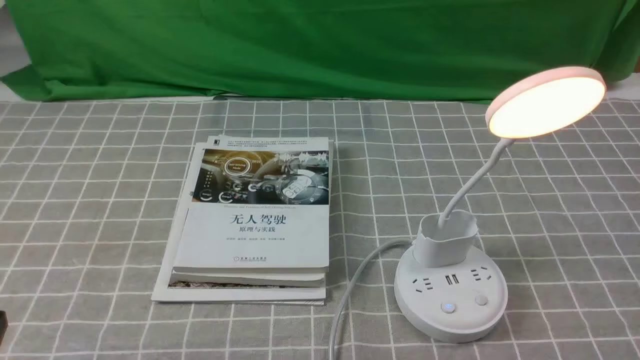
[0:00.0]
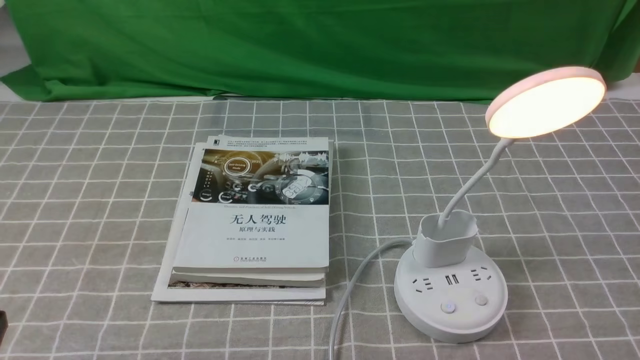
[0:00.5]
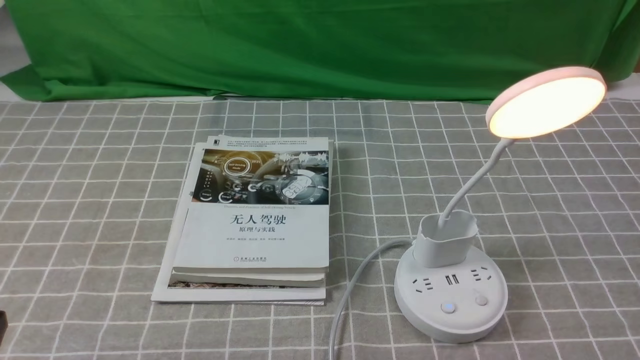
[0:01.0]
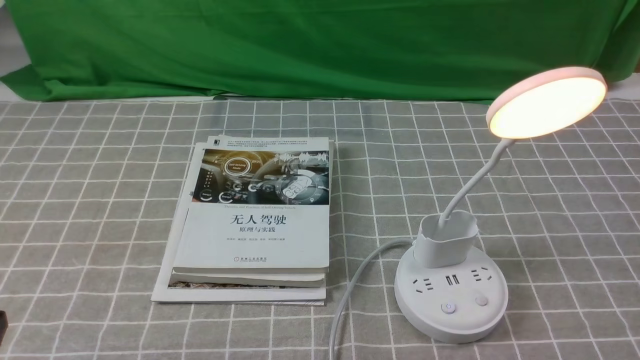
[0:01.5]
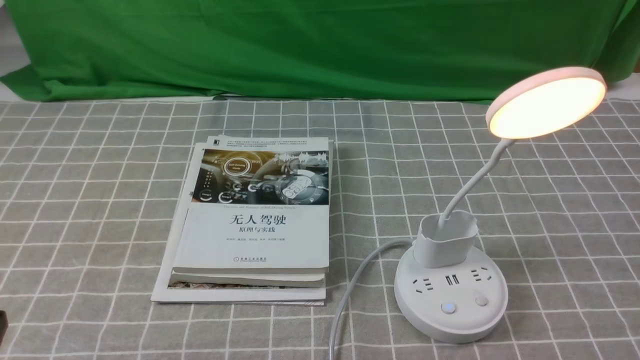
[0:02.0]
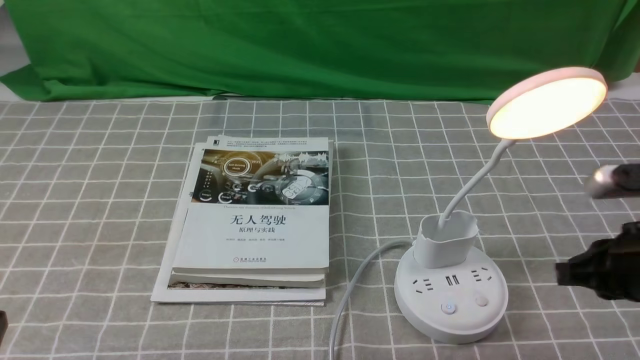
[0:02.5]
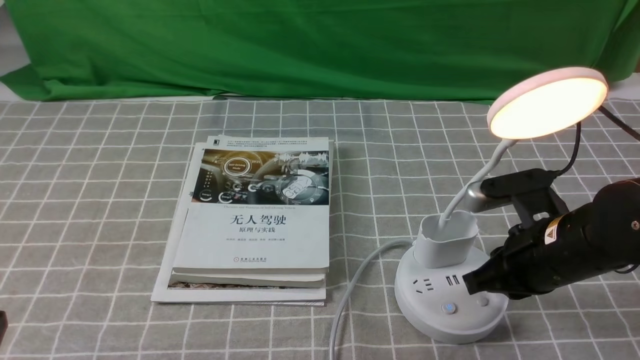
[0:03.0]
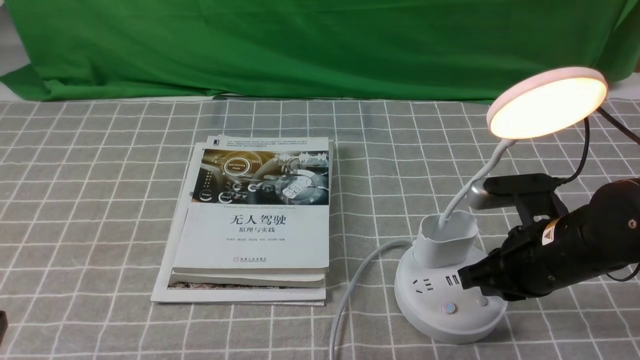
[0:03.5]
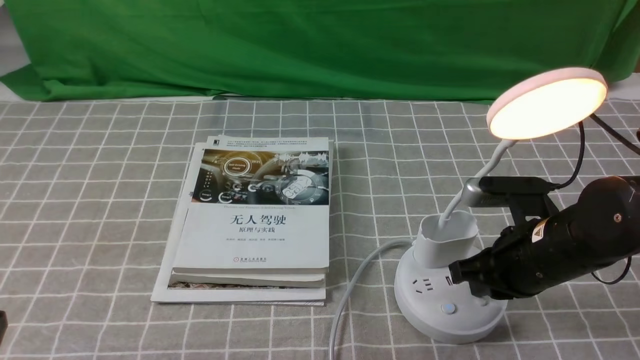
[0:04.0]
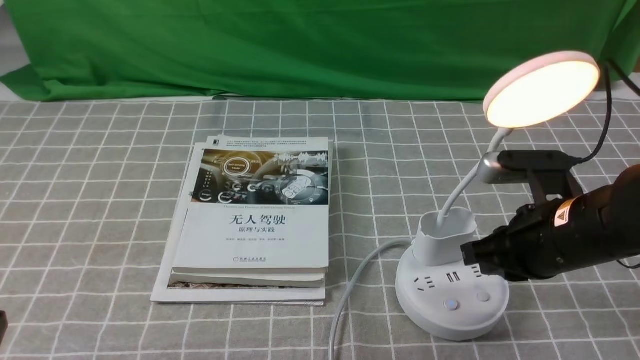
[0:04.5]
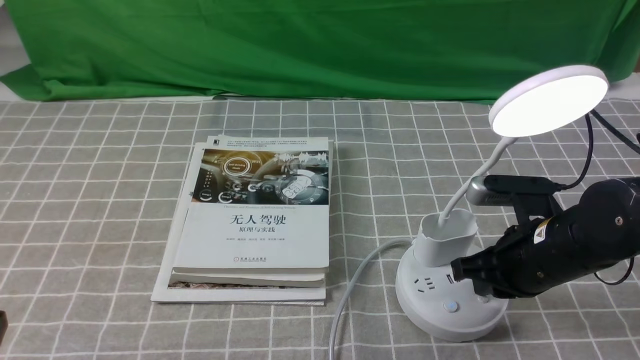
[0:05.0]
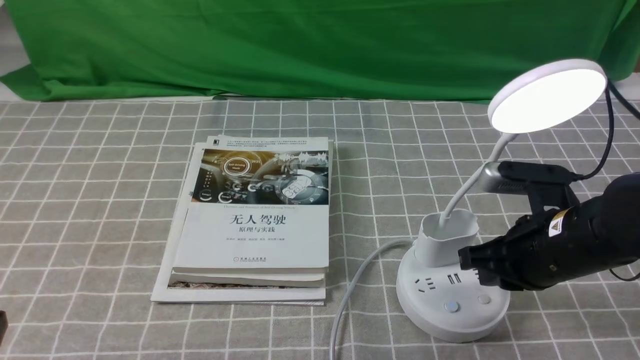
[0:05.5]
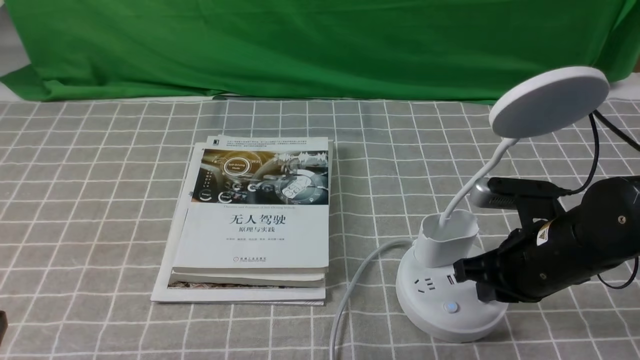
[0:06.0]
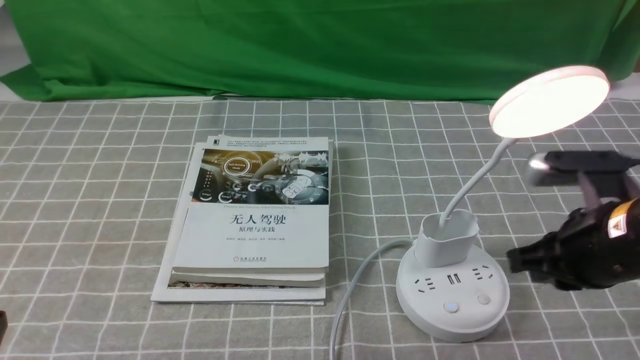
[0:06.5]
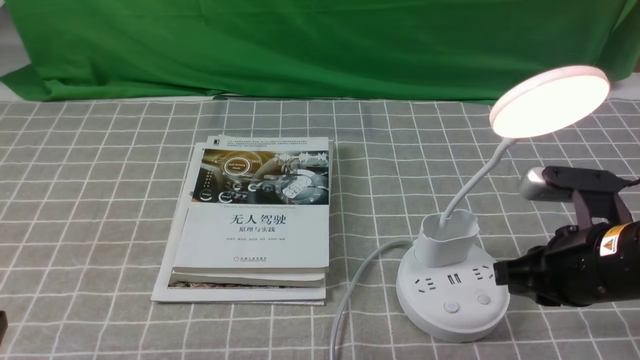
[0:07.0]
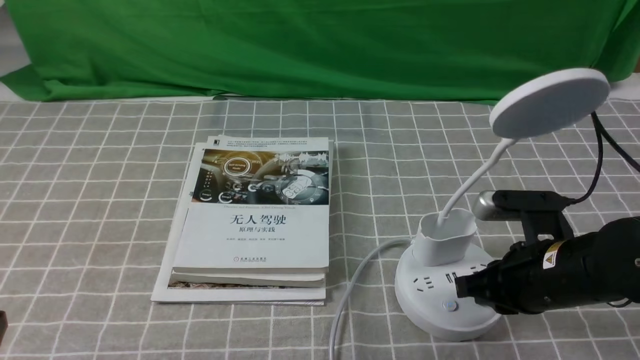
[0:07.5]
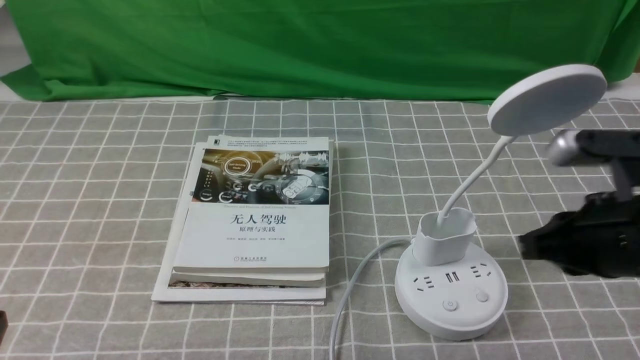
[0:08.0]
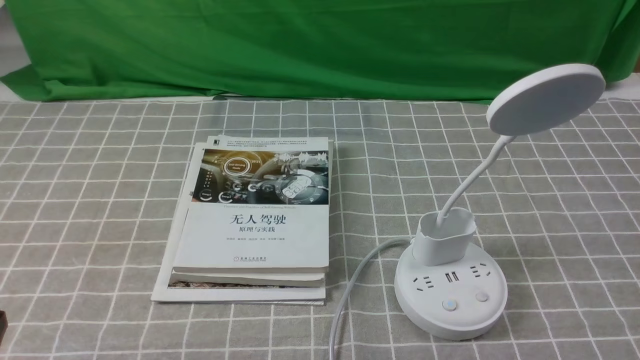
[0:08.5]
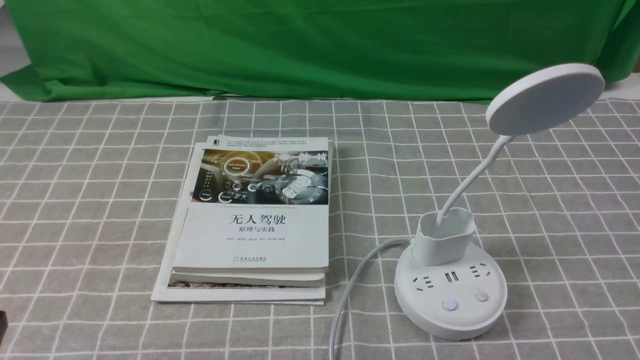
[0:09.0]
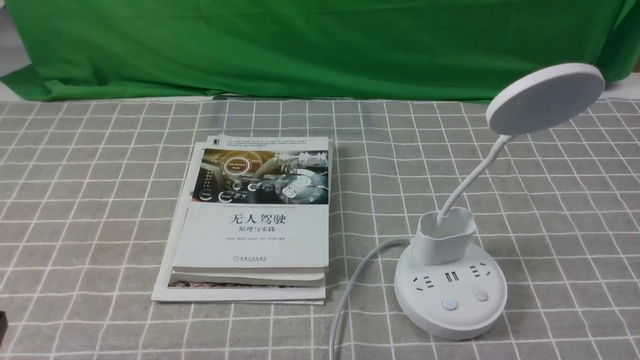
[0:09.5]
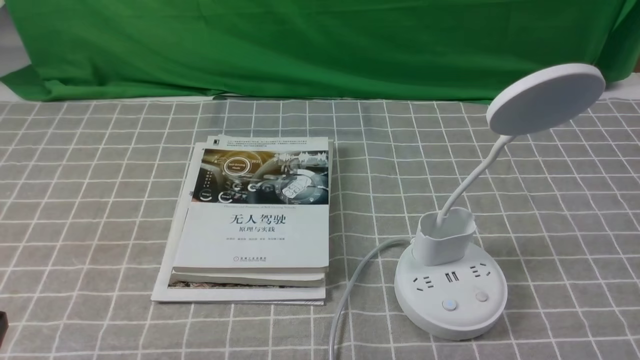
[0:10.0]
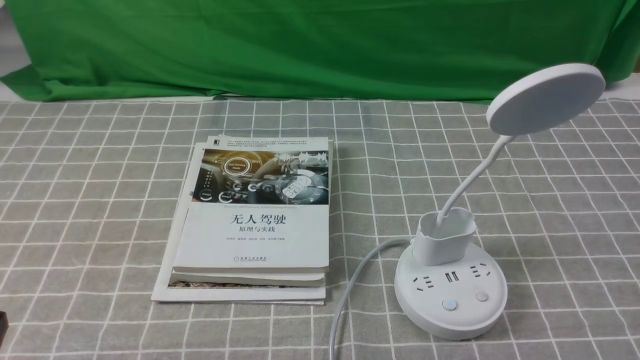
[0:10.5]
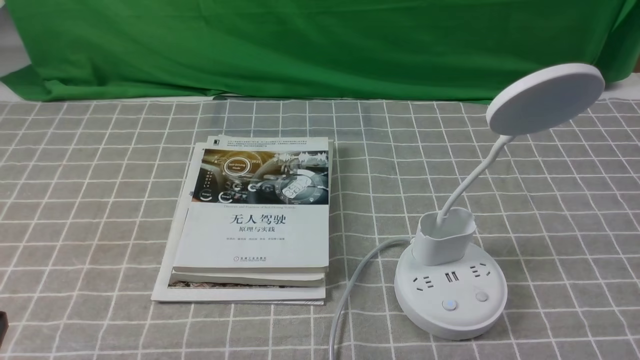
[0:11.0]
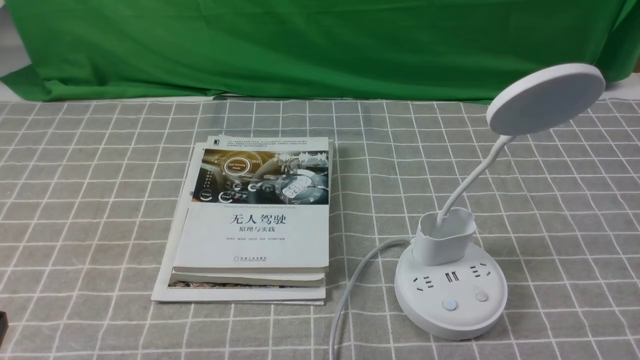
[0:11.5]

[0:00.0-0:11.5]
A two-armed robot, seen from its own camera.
Task of the whole recording: turn off the desk lamp on the grey coffee tablecloth by hand.
Step, 0:00.0 to 0:07.5: use the right arm to press the button switch on the lamp holder.
0:02.0 to 0:04.0: The right gripper travels forward, to the left and downward by some 20 cm.
0:04.0 to 0:06.0: The right gripper opens up.
0:06.0 to 0:07.5: The right gripper closes its fingers.
0:07.5 to 0:09.5: The right gripper goes about 20 cm backward and to the right.

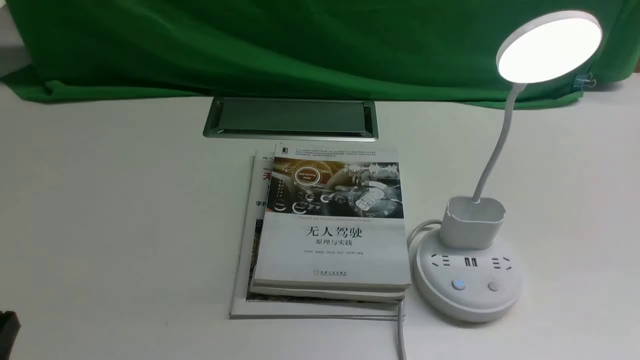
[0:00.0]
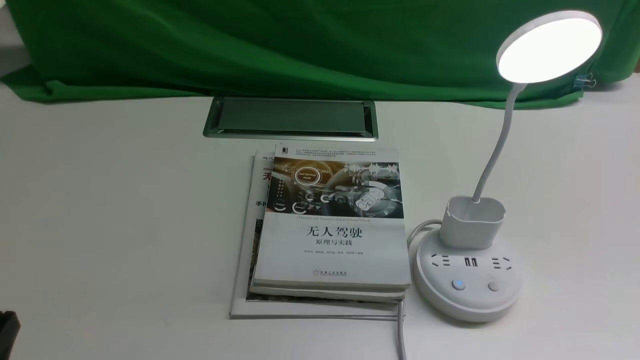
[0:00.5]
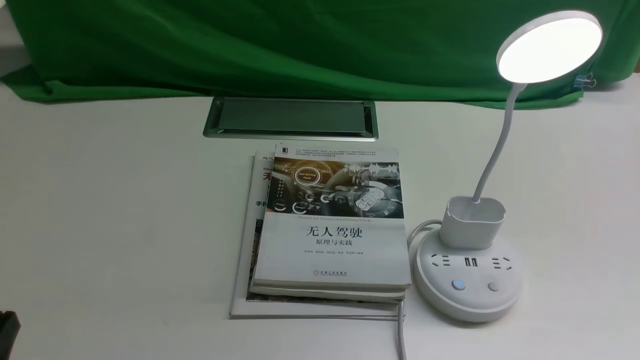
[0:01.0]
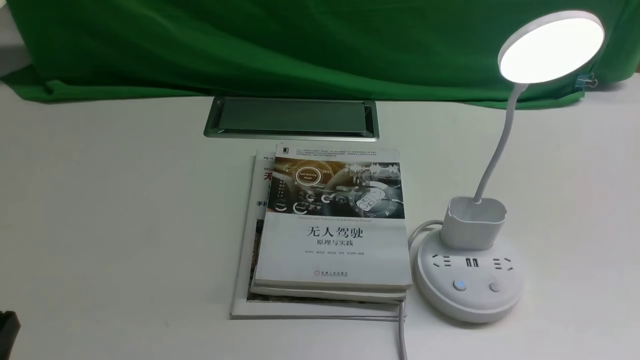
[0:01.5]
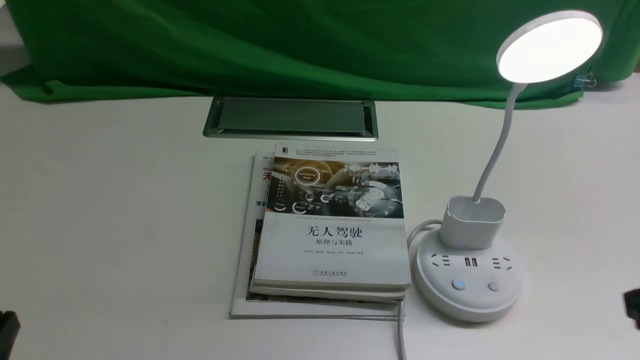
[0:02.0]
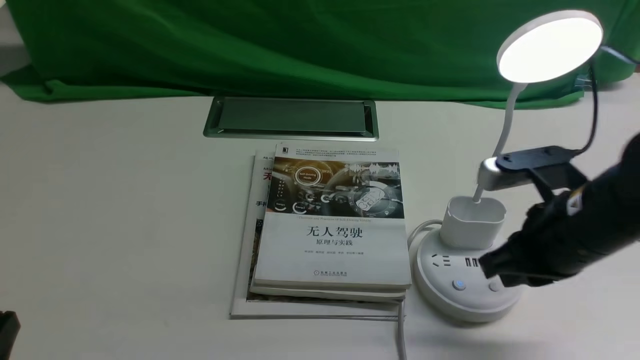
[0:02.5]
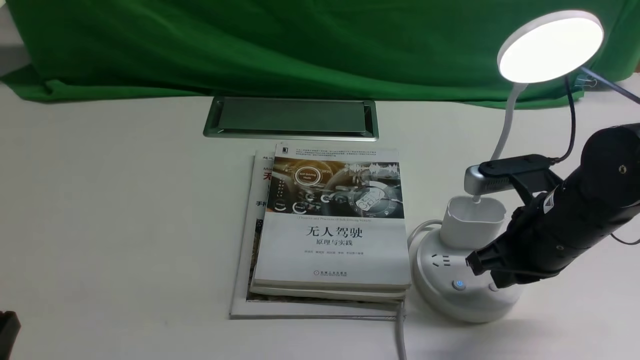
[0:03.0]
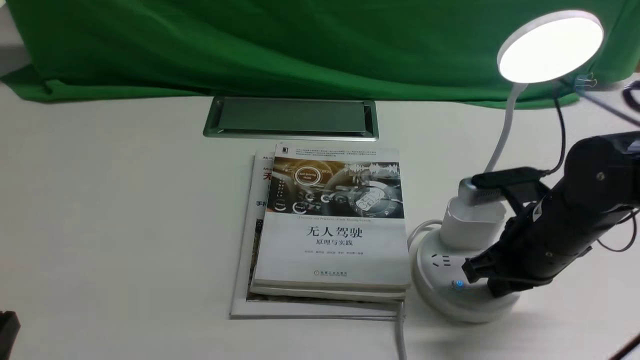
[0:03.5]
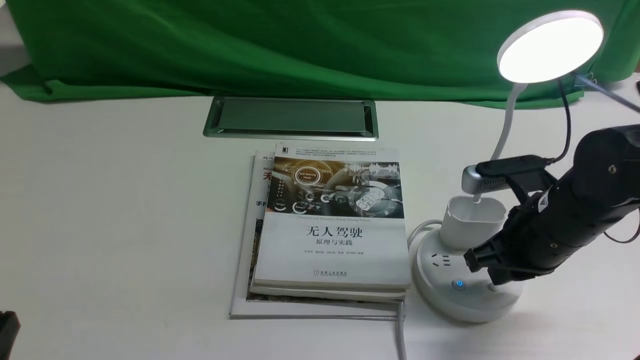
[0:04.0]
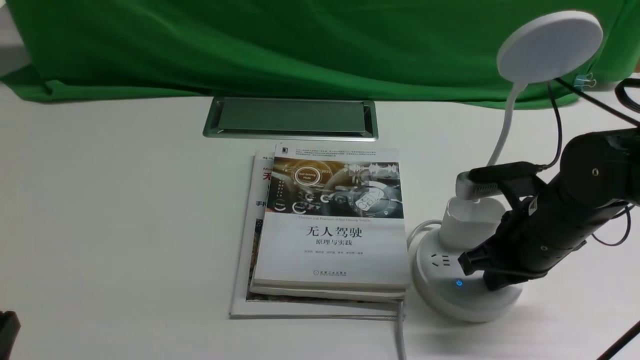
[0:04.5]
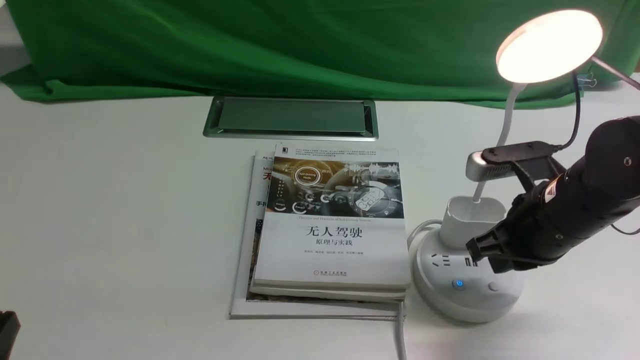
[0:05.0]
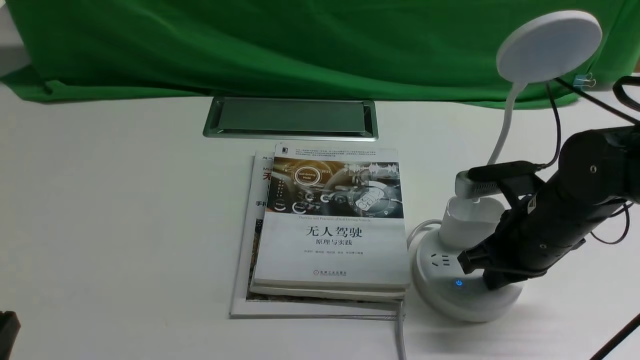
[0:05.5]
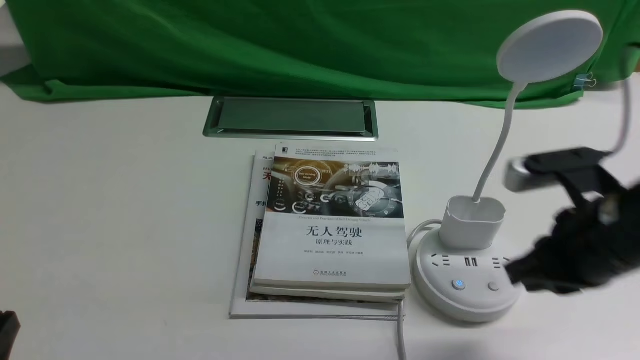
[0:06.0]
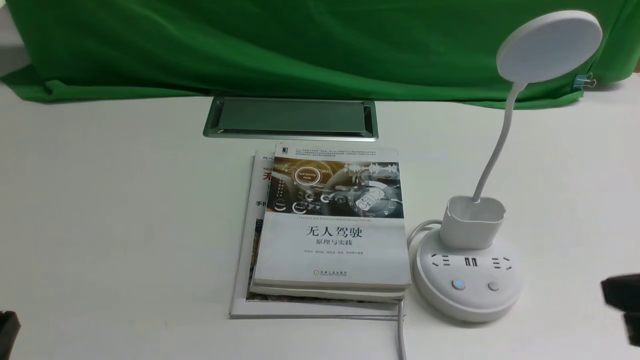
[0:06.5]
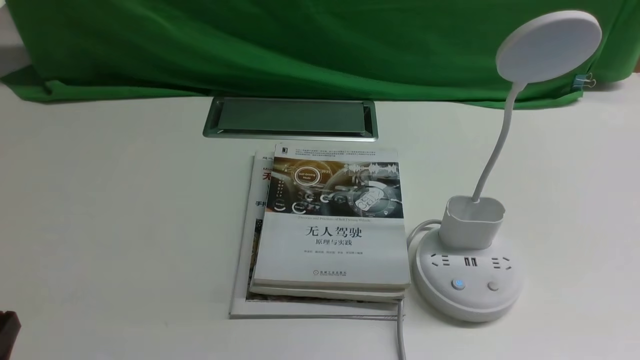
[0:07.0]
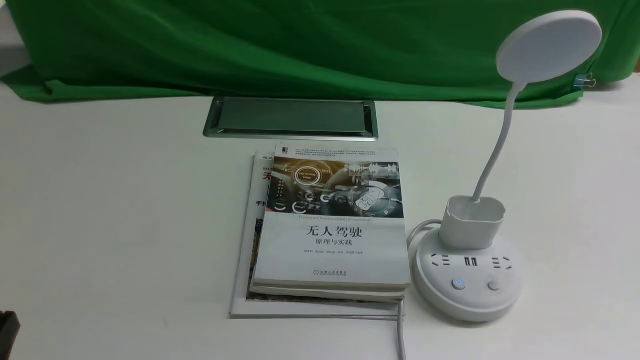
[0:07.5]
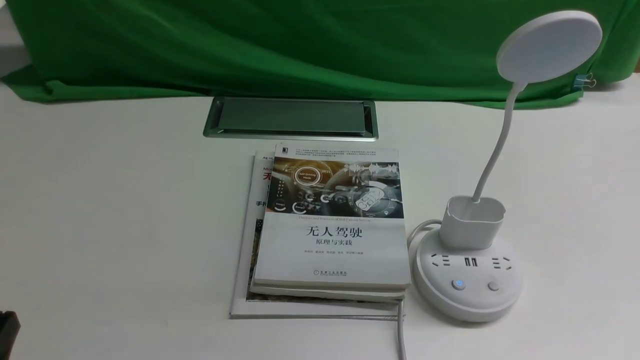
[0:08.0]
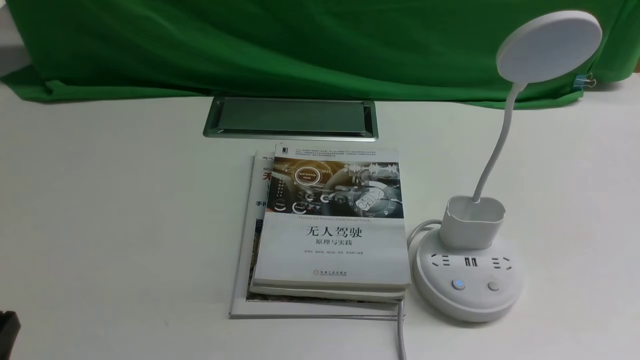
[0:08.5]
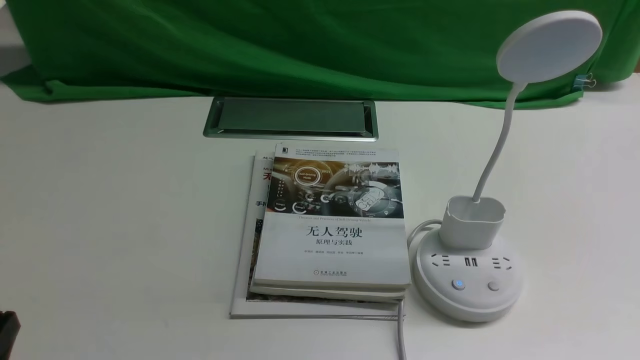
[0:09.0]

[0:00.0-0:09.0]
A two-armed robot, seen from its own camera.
Task of the whole recording: turn off the desk lamp on the white desktop by hand.
Step, 0:00.0 to 0:05.5: use the right arm to press the button switch on the lamp holder.
0:02.0 to 0:04.5: The right gripper goes about 20 cm forward, downward and to the left.
0:04.5 to 0:07.0: The right gripper is displaced backward and to the right by roughly 25 cm, and opens up.
